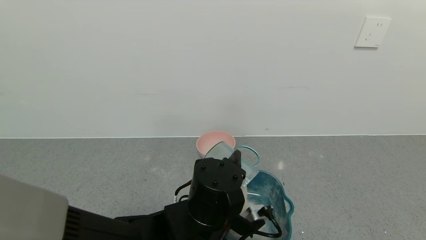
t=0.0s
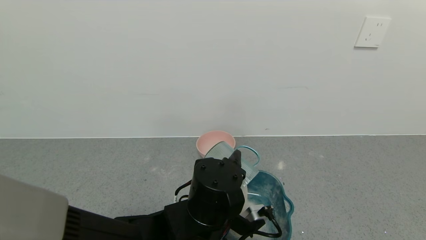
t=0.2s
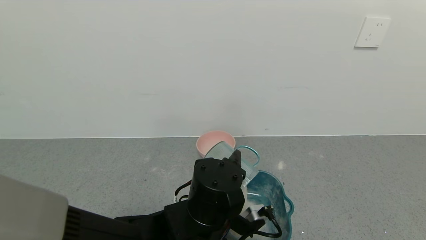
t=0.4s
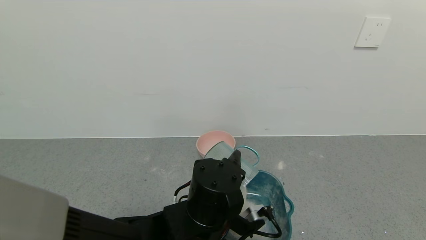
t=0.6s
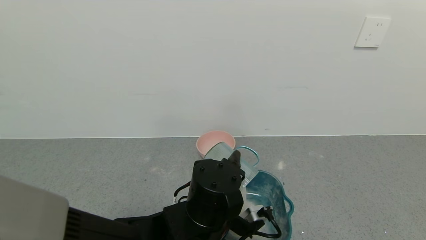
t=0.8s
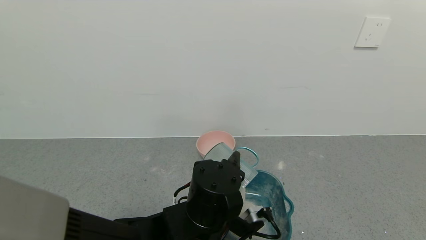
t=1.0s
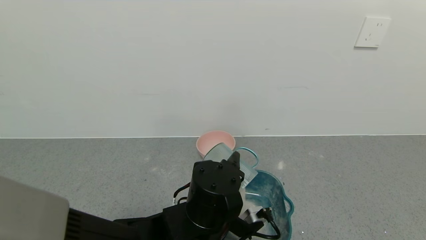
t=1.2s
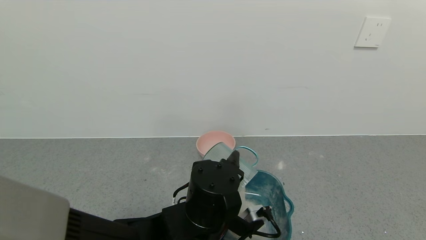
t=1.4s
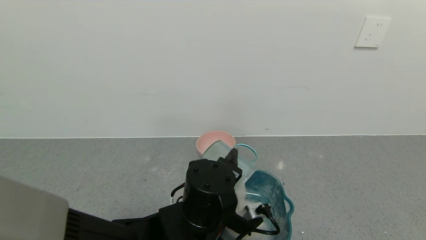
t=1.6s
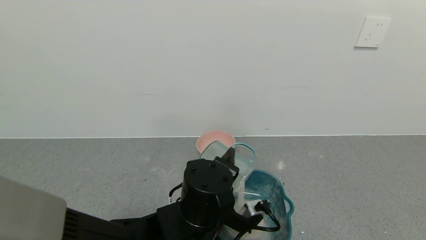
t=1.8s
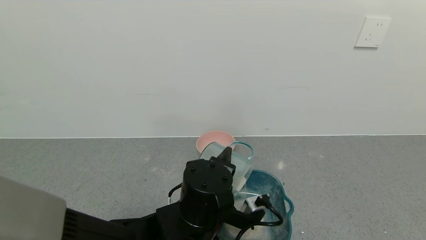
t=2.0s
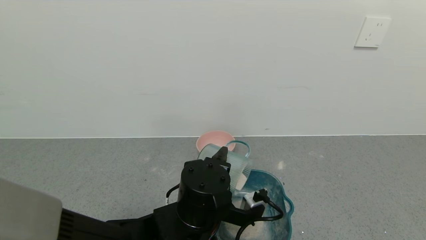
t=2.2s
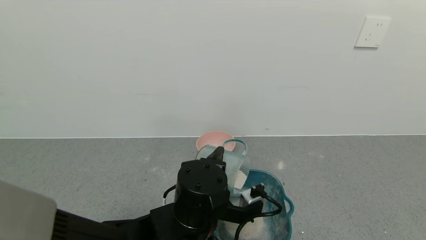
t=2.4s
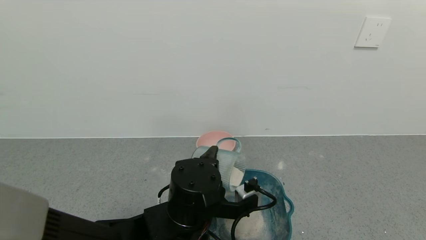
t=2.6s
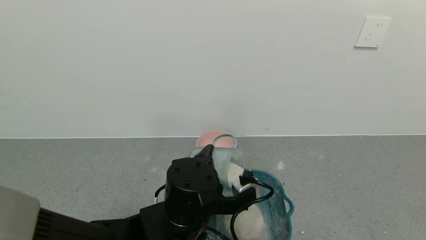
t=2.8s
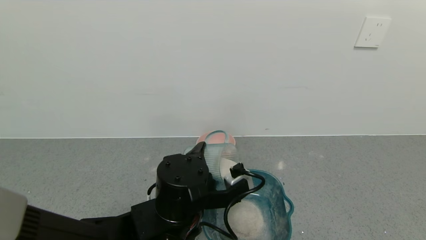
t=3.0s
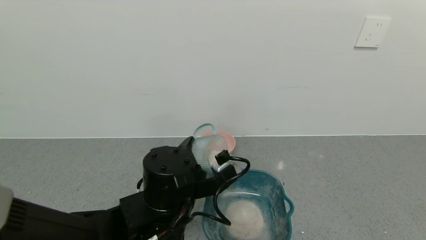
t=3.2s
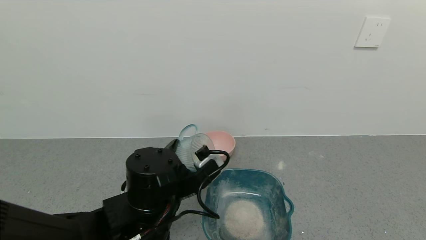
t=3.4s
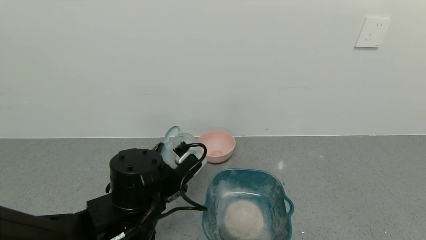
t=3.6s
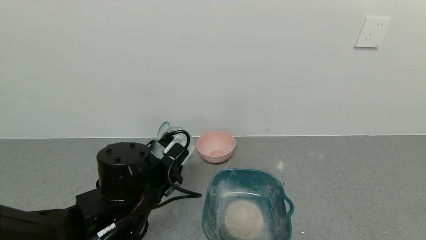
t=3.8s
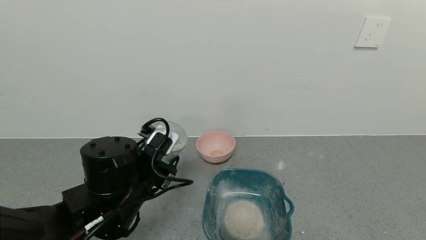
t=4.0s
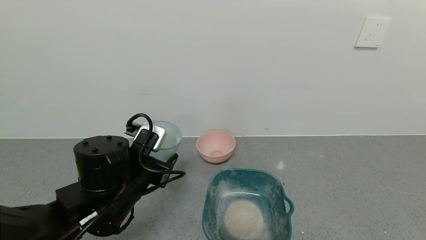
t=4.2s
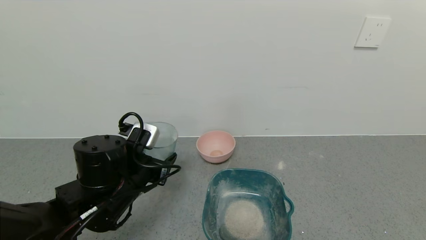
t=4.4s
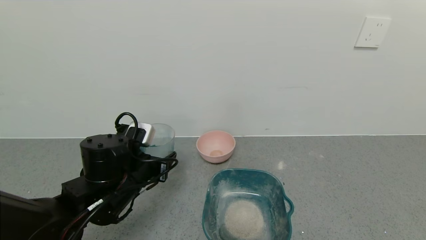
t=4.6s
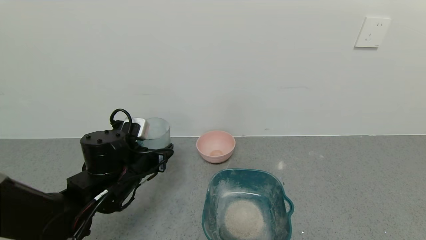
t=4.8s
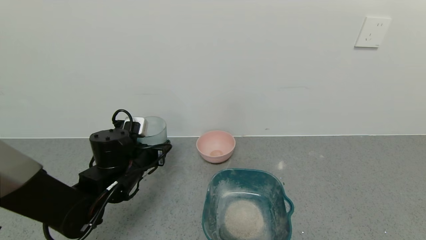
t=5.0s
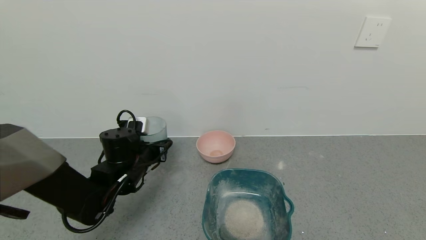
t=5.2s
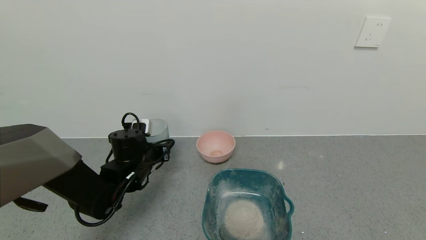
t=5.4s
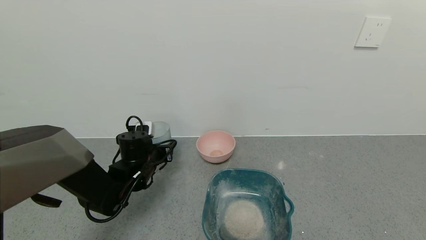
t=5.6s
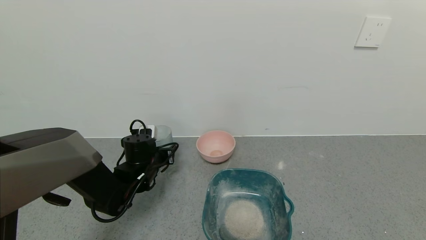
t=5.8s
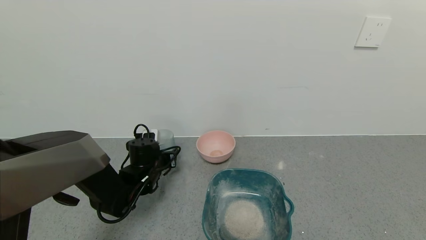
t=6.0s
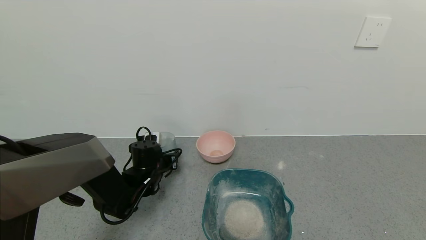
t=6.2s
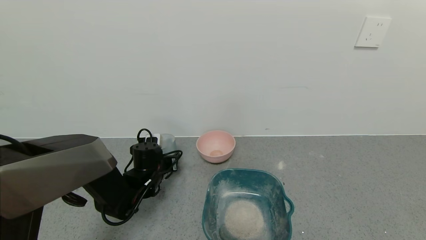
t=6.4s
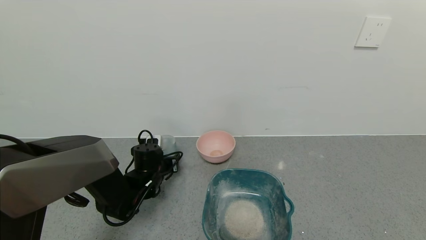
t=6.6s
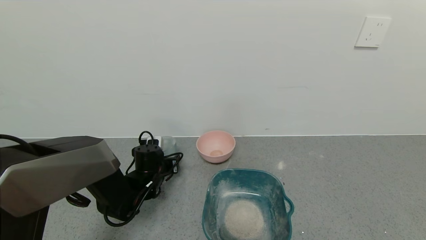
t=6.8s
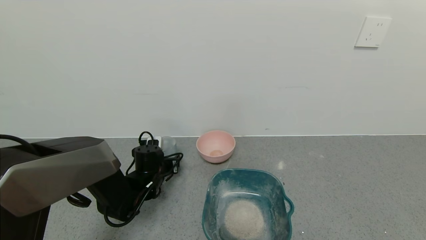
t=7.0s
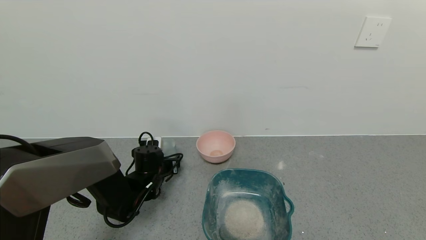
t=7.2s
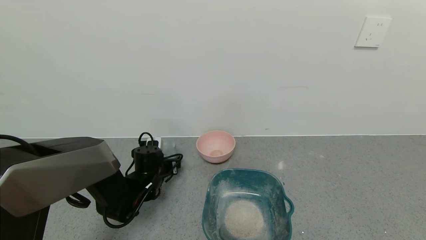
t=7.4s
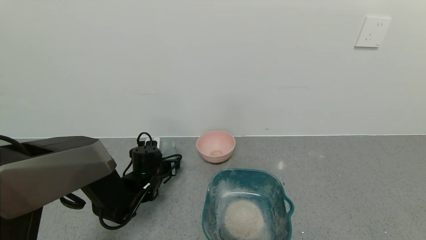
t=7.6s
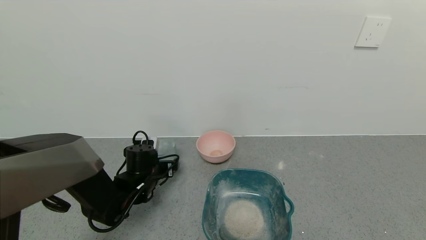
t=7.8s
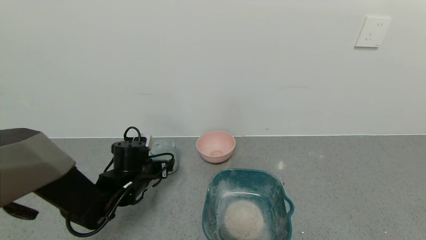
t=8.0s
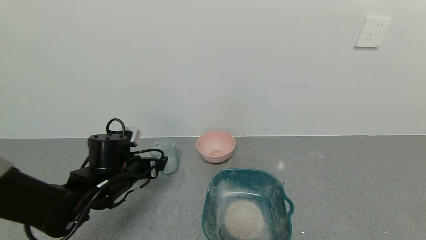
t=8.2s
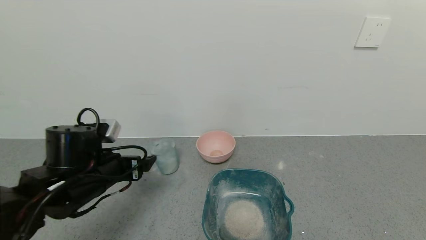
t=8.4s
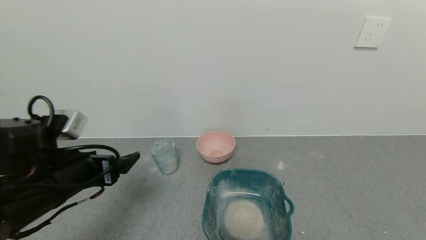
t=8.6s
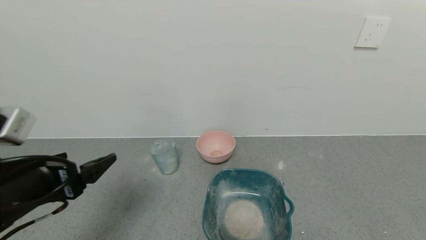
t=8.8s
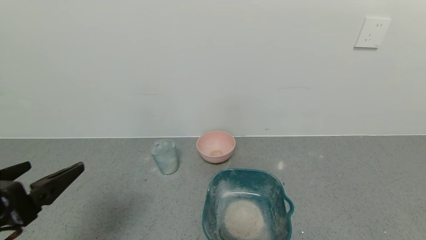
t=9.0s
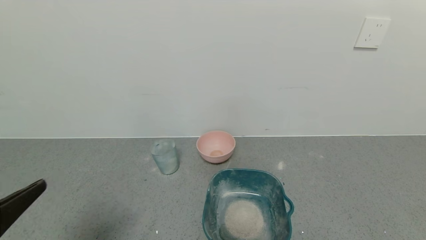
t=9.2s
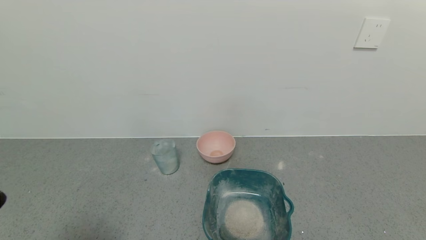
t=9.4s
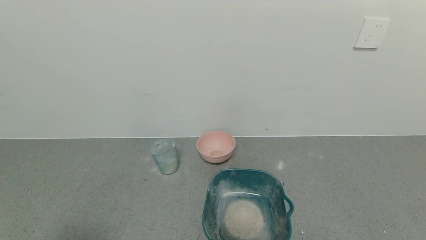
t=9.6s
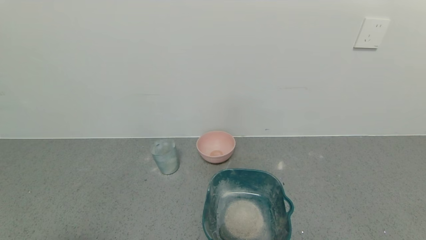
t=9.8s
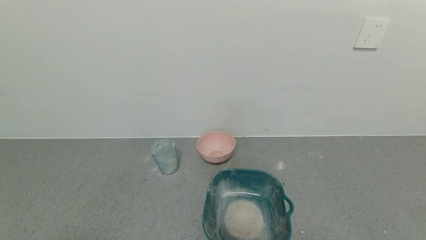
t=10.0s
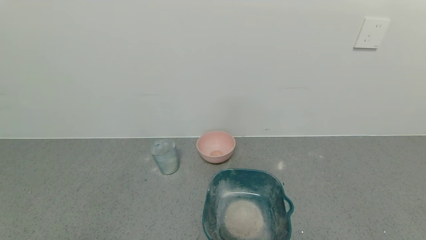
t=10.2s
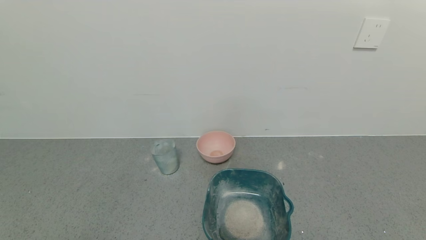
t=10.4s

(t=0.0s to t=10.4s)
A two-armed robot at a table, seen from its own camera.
Task of the whole recording: use a gripper to pick up the cup and pour the powder into a bowl or tray.
Step, t=0.0s - t=2.8s: Pour the milk powder into the blue basin with left gripper.
Step, t=3.0s - t=7.2s: Place blue cup with milk powder on the table with left gripper.
t=0.0s - t=1.4s: The two grippers keep their place.
t=3.0s - t=4.4s: The left gripper moves to the left, about 10 cm.
t=4.4s - t=6.0s: The left gripper shifts some 15 cm forward and downward.
t=6.0s - t=7.4s: The left gripper opens up.
t=7.4s - t=9.0s: The left gripper heads backward and upward, covering about 35 cm.
t=9.0s - t=10.4s: The left gripper heads backward, covering some 10 cm.

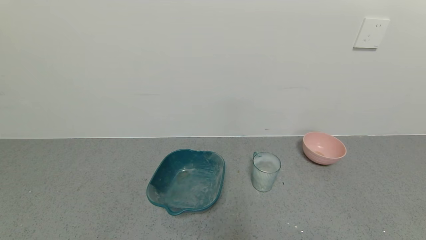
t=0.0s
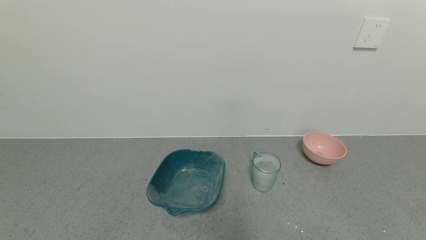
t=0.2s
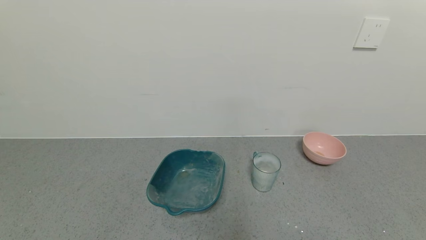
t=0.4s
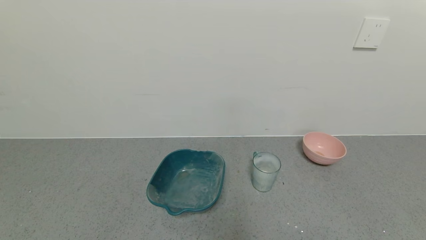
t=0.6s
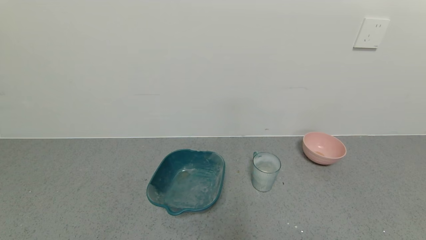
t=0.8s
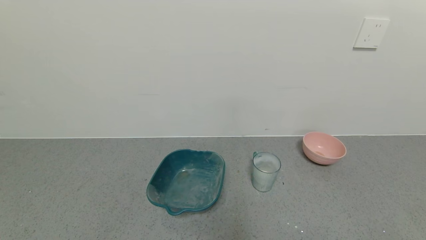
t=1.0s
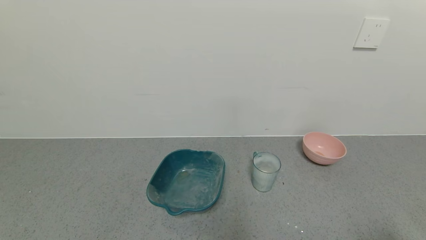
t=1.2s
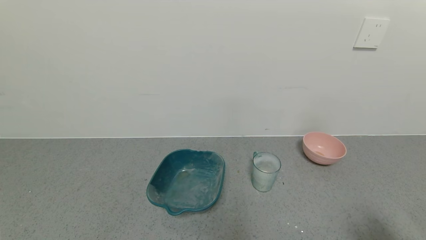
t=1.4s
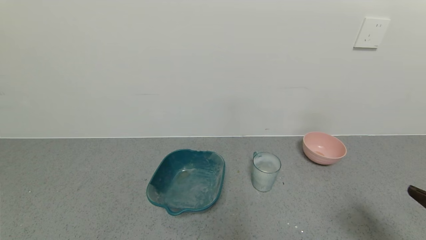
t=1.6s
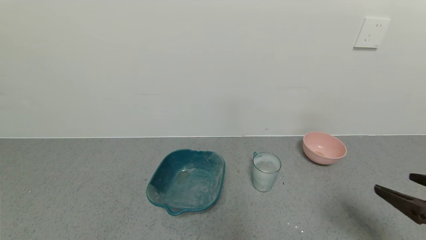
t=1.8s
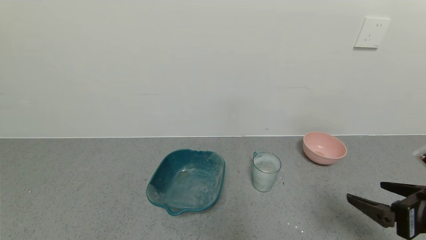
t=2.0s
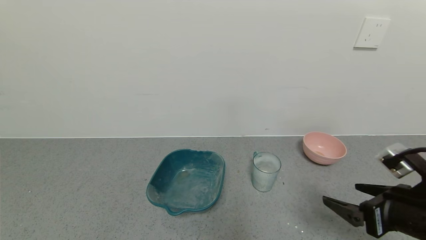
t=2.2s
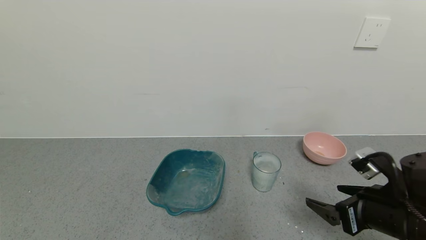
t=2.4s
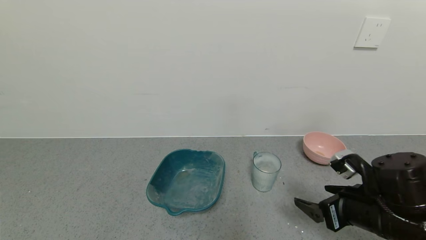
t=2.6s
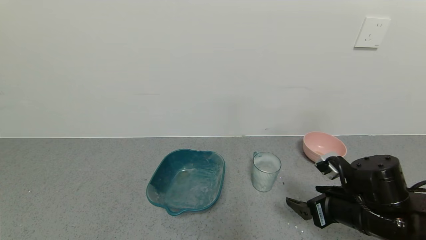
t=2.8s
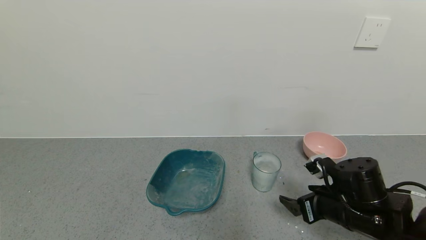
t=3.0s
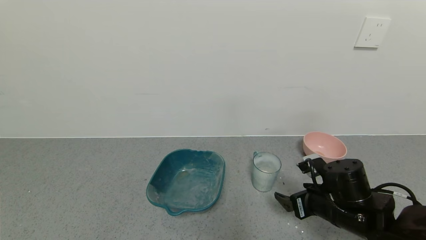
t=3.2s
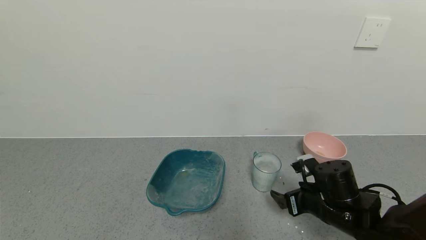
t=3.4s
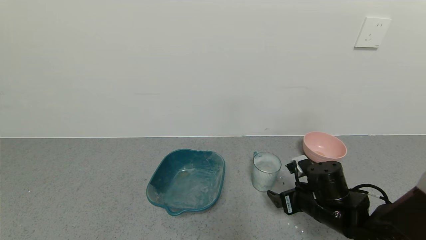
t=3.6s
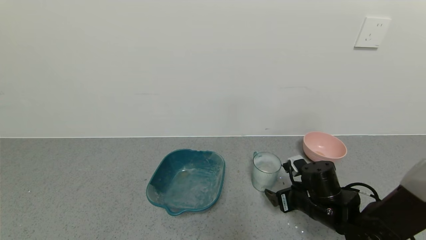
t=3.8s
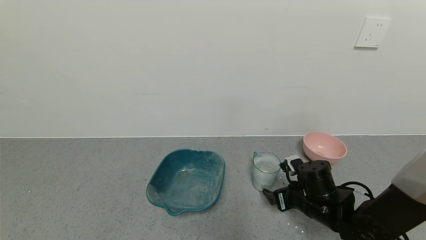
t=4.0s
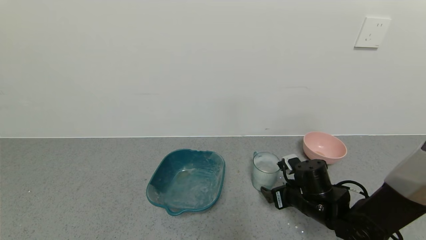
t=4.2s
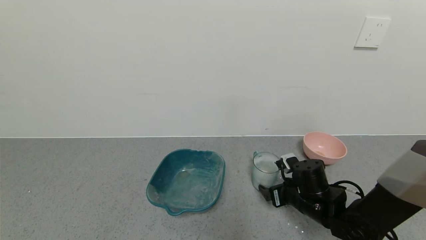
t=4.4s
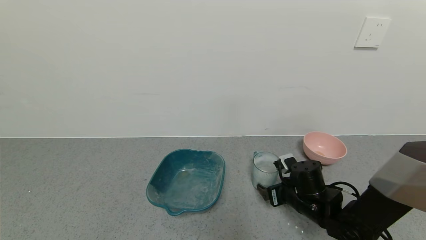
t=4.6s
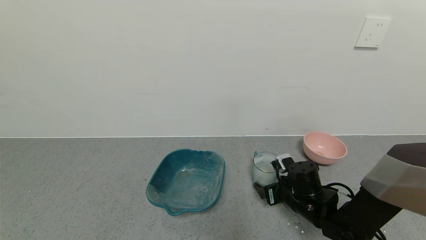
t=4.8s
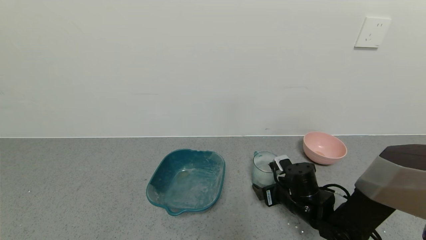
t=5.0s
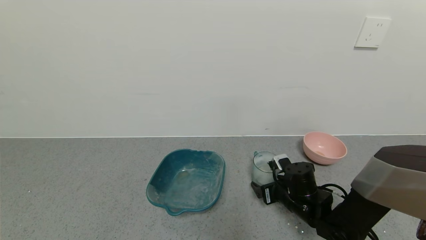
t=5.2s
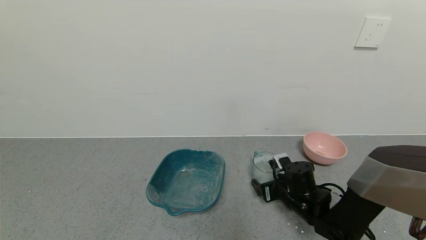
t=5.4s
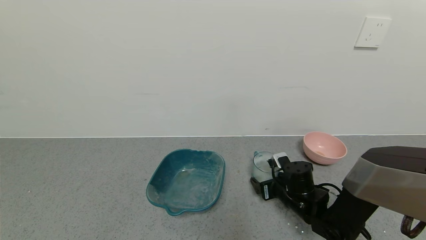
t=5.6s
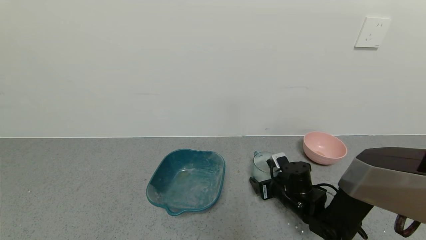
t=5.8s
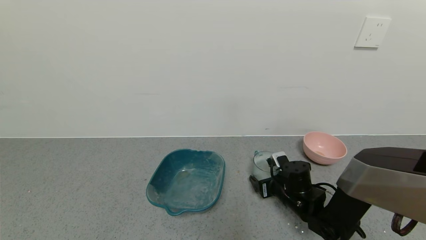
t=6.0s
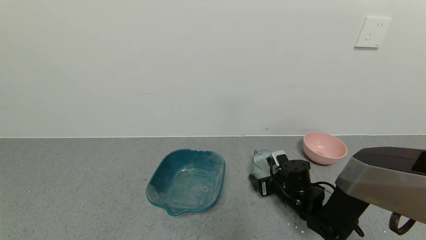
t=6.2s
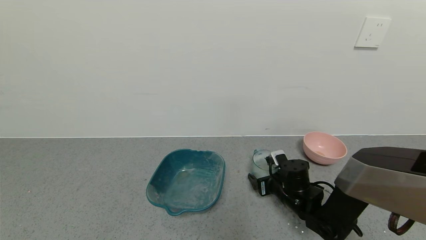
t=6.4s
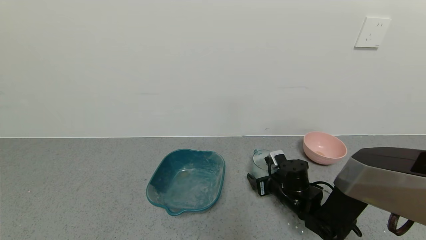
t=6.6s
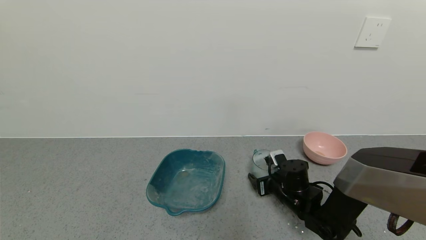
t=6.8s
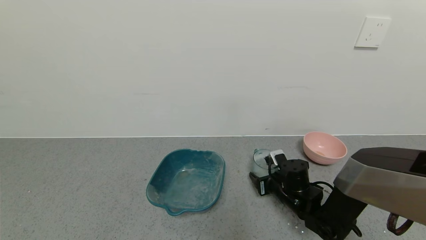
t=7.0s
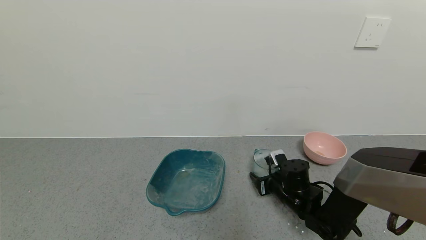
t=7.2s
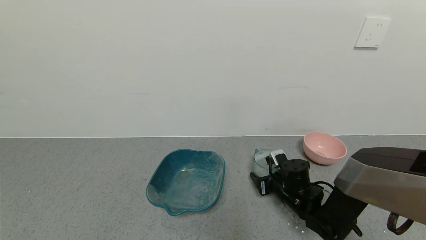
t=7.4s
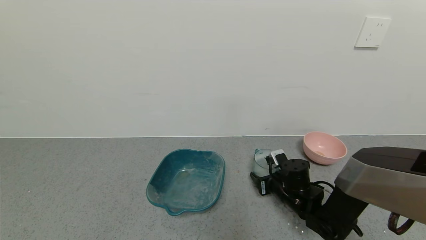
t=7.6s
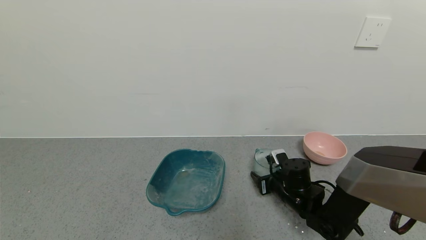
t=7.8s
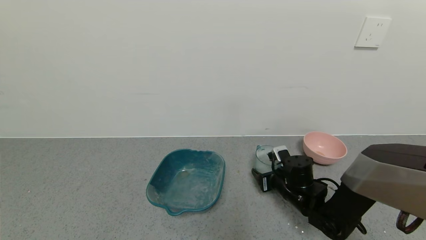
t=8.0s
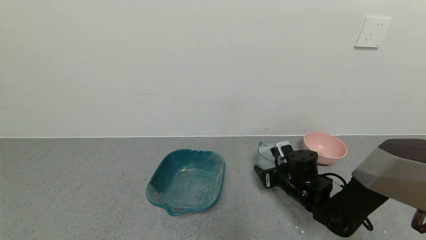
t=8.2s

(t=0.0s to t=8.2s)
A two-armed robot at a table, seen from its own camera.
Task of the whole recording: use a gripper to pick up the cup and pour the powder into a bowl or tray.
Step, t=0.0s - t=7.0s: Pick up blue cup filled with coffee powder with right gripper.
t=0.0s - t=1.6s: The right gripper heads upward and forward, covering about 15 cm.
t=1.6s - t=3.2s: The right gripper travels forward, to the left and downward by approximately 25 cm.
t=3.2s - t=5.0s: The right gripper travels downward and forward by approximately 10 cm.
t=5.0s - t=6.6s: The grippers make only small movements.
t=6.6s - t=8.2s: The right gripper closes.
